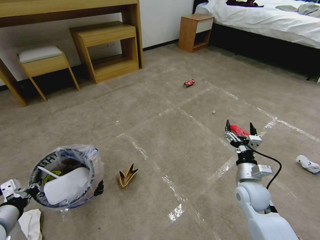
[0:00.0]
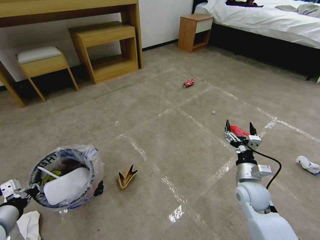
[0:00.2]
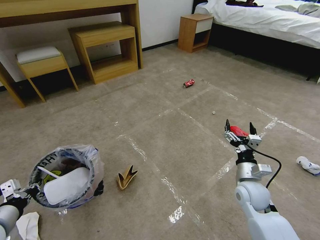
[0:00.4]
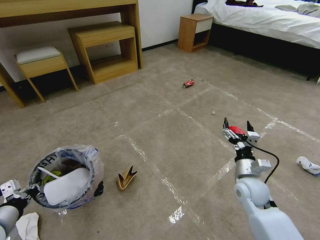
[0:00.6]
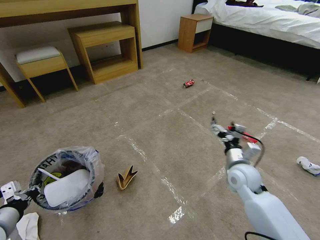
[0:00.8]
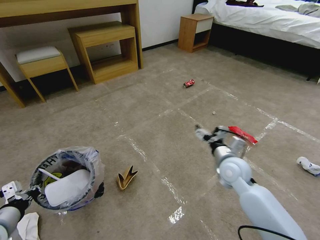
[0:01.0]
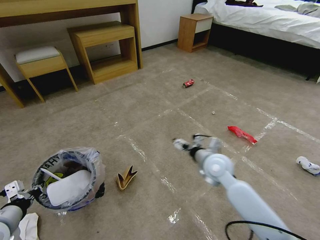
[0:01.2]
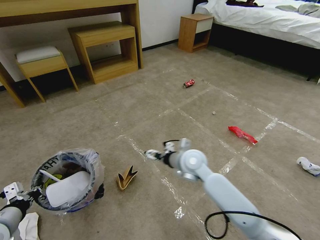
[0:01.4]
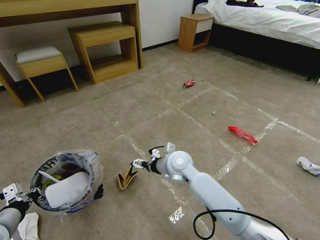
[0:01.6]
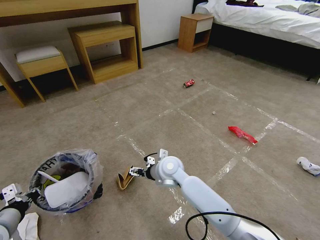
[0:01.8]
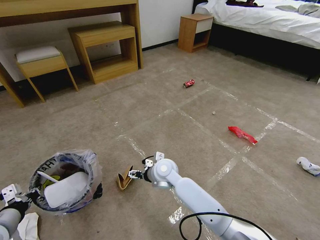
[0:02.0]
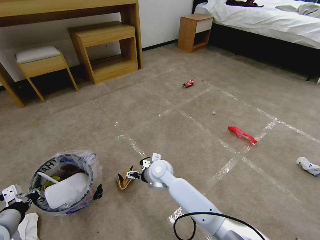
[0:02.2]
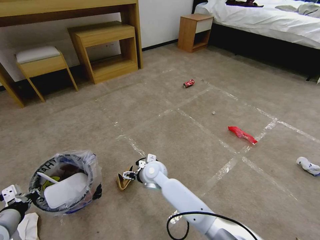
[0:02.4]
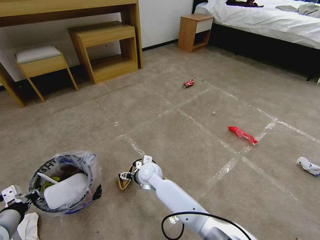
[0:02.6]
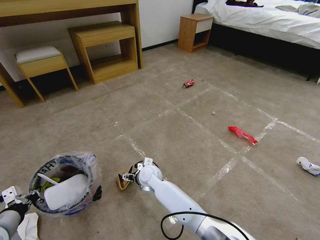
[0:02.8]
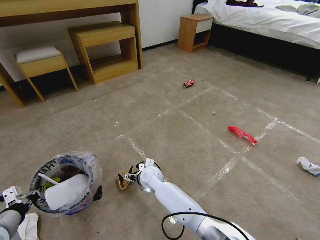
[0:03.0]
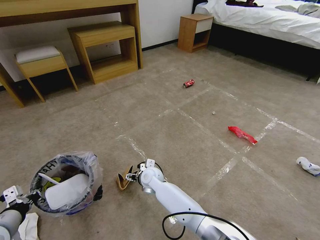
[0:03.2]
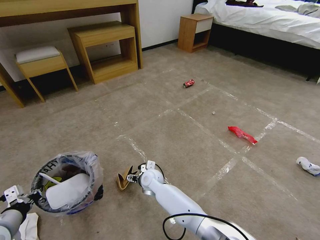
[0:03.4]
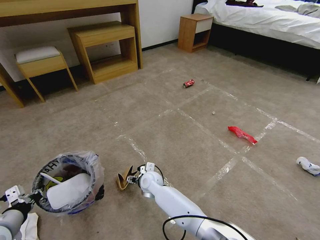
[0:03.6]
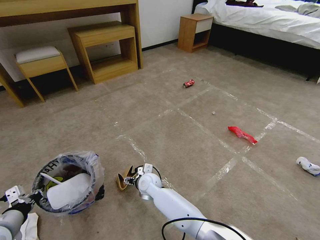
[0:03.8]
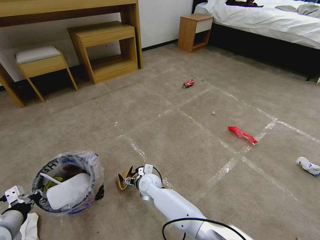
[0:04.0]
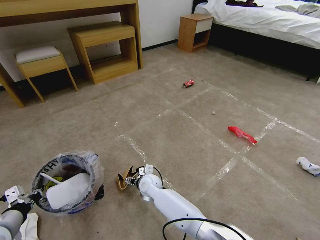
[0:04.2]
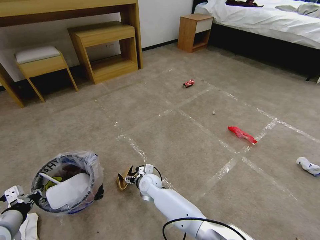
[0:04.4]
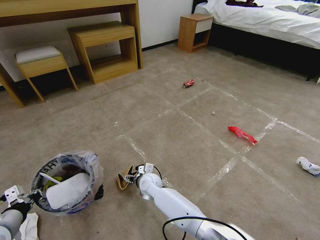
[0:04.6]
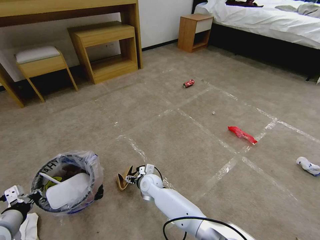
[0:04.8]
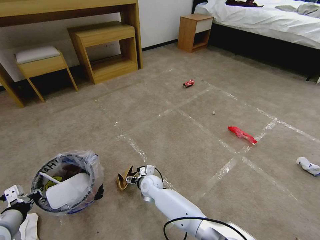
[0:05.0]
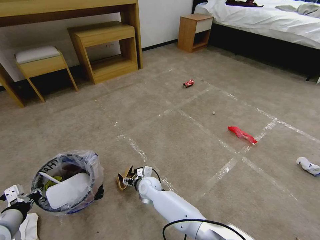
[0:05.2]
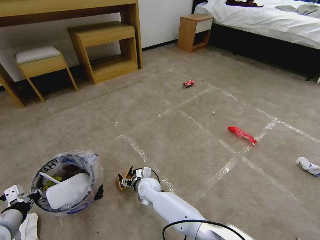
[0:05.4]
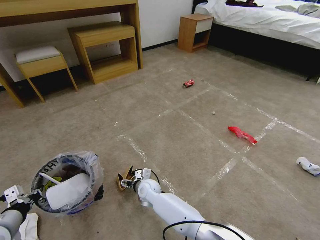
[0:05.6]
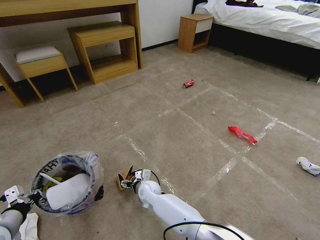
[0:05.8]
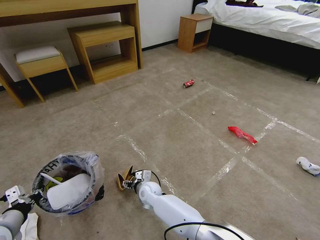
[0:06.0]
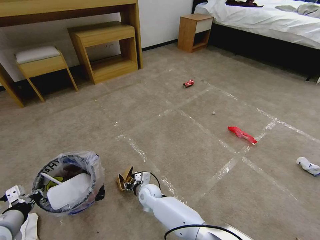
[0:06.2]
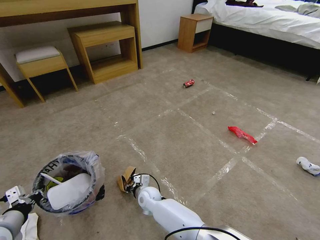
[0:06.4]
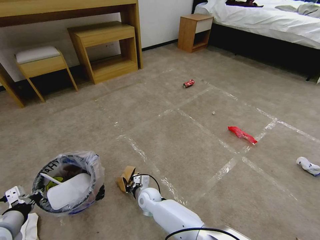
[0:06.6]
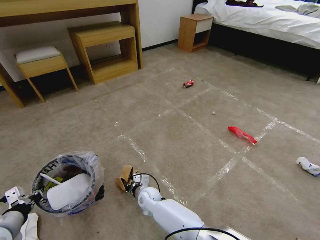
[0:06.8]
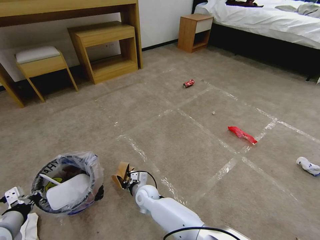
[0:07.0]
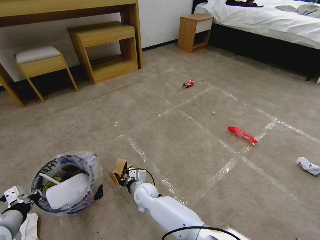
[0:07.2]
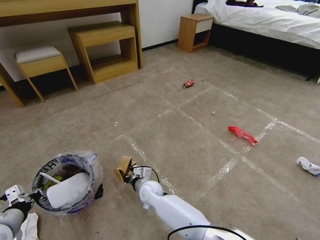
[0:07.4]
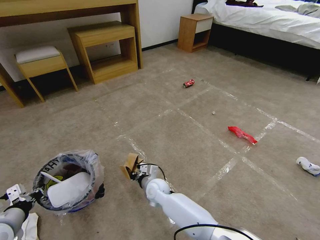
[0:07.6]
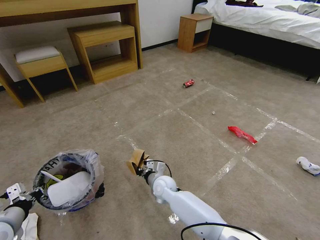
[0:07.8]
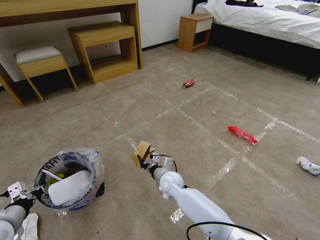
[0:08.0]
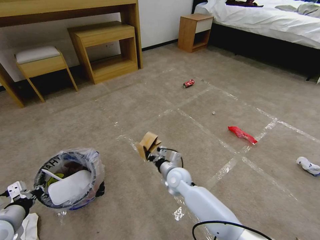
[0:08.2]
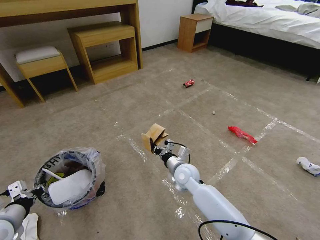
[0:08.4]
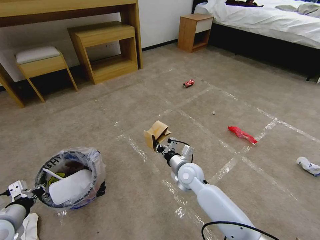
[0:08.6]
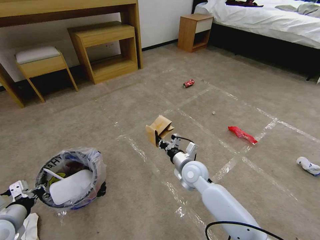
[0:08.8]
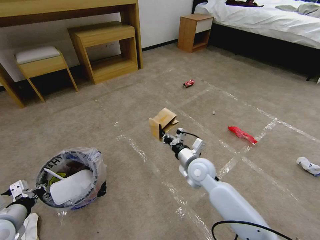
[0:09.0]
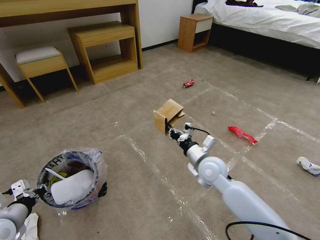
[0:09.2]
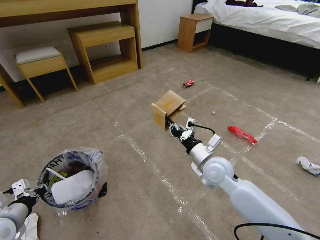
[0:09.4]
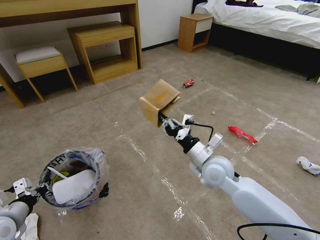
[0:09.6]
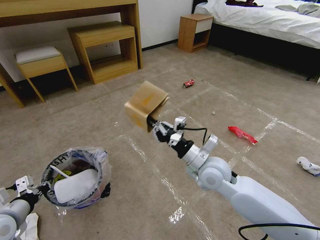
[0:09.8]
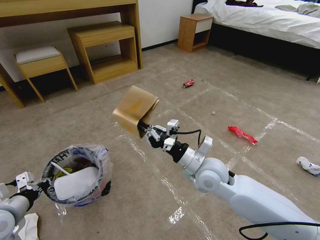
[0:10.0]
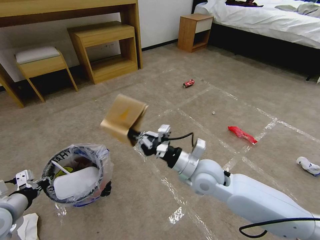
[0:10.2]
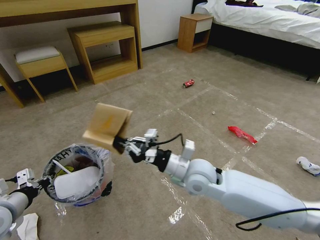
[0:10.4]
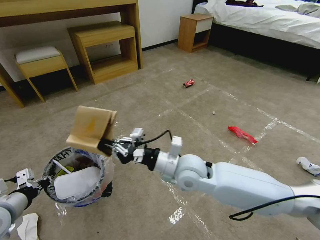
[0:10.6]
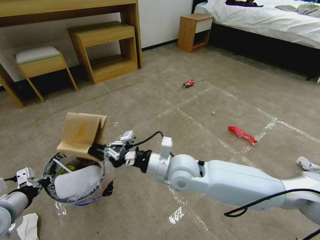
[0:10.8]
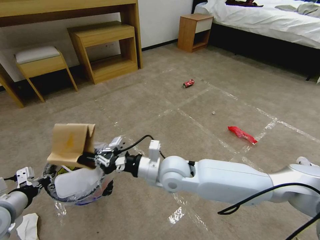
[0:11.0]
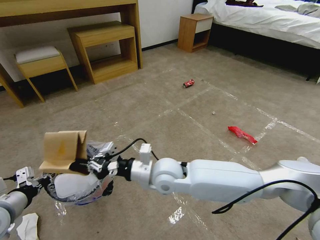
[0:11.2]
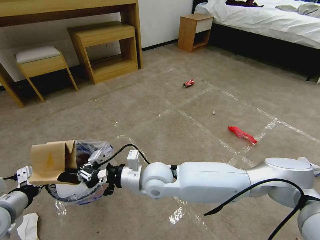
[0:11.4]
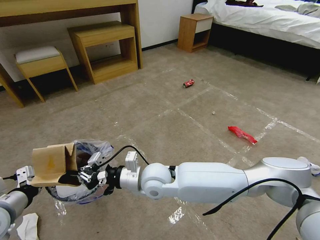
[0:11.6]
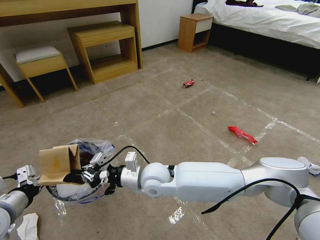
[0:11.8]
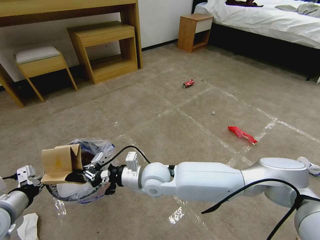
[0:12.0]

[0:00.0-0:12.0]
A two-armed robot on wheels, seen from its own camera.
Task of the whole recording: Pick up the trash bin and place the garbage on the floor into it.
0:00.0 to 0:01.6: The right gripper is displaced to the left by some 25 cm.
0:01.6 to 0:03.0: The right gripper heads downward and to the left, covering about 15 cm.
0:03.0 to 0:04.4: The grippers make only small movements.
0:04.4 to 0:06.0: There are only small adjustments of the grippers.
0:06.0 to 0:07.6: The right gripper closes up.
0:07.6 to 0:09.0: The right gripper shifts some 20 cm to the right and upward.
0:09.0 to 0:10.4: The right gripper shifts about 10 cm upward and backward.
0:10.4 to 0:12.0: The right gripper goes roughly 15 cm to the left.

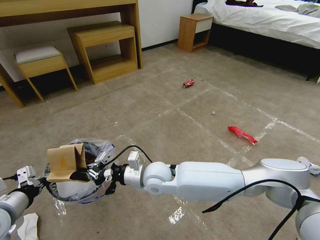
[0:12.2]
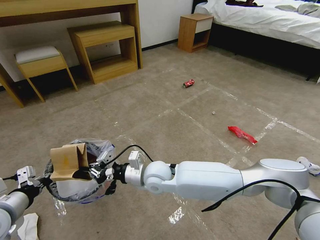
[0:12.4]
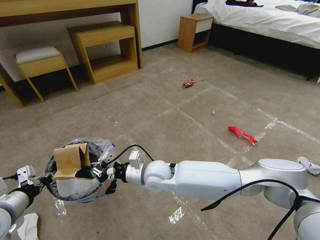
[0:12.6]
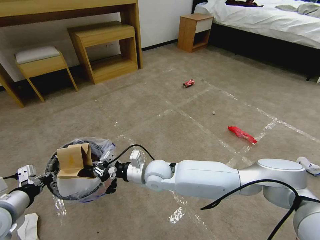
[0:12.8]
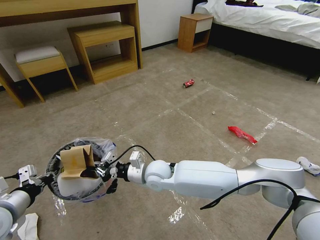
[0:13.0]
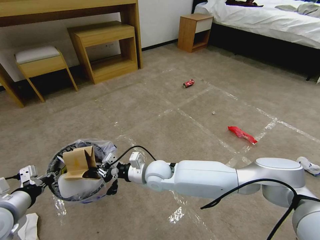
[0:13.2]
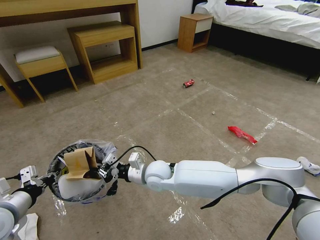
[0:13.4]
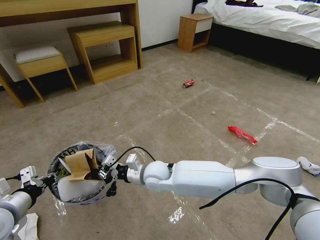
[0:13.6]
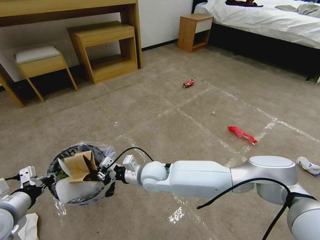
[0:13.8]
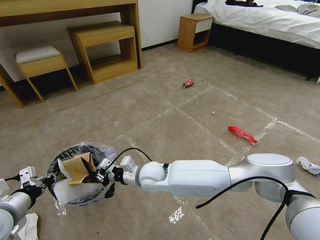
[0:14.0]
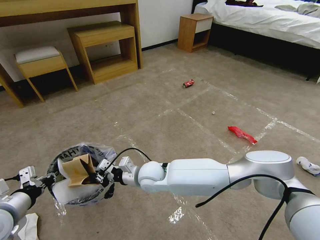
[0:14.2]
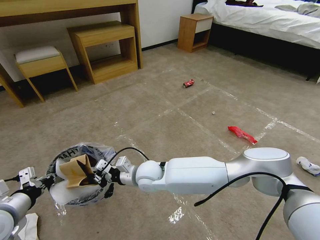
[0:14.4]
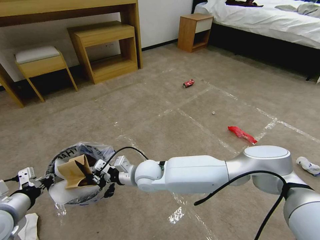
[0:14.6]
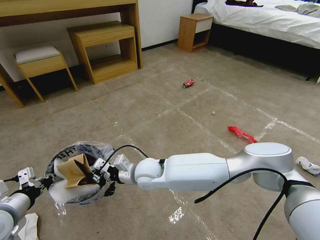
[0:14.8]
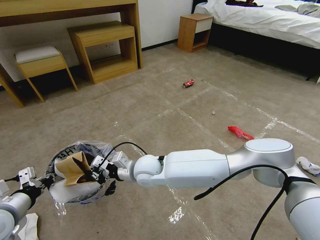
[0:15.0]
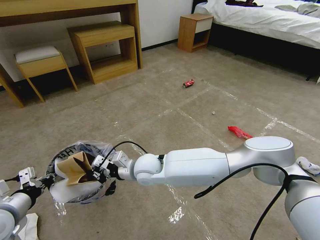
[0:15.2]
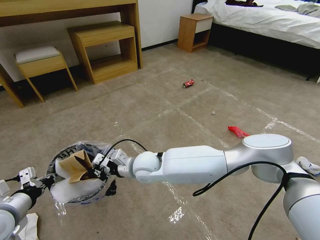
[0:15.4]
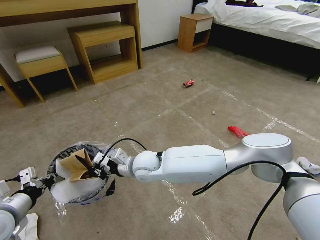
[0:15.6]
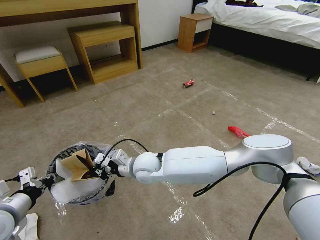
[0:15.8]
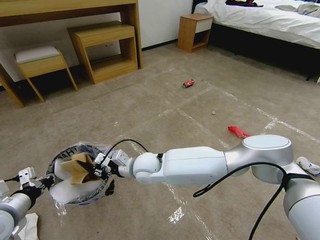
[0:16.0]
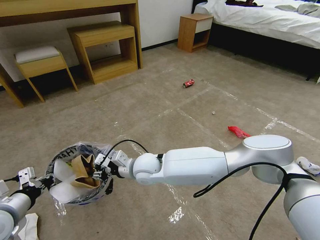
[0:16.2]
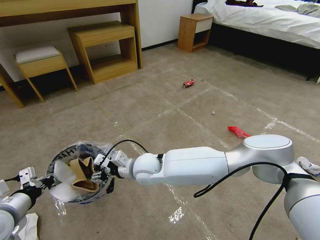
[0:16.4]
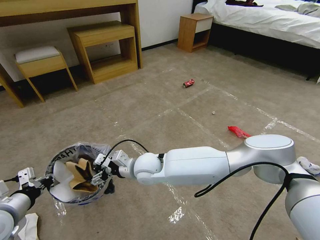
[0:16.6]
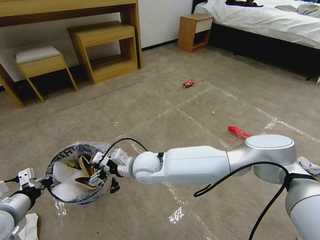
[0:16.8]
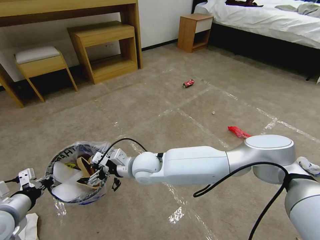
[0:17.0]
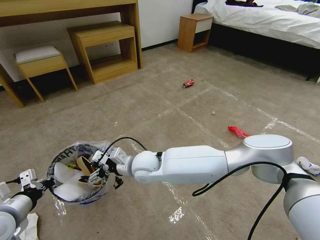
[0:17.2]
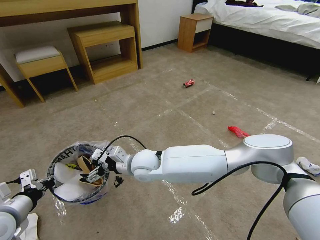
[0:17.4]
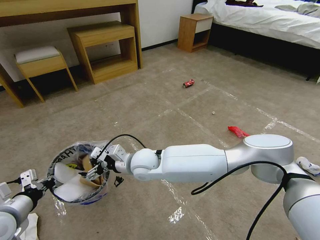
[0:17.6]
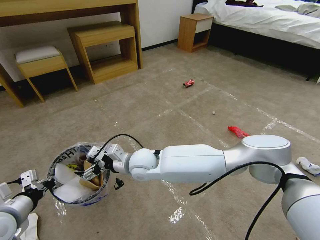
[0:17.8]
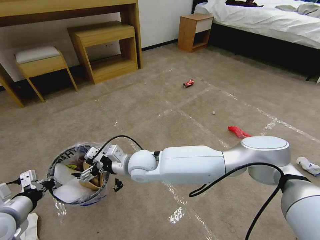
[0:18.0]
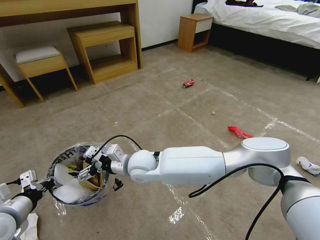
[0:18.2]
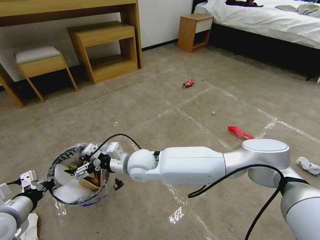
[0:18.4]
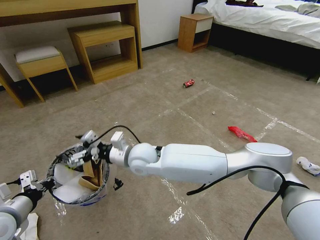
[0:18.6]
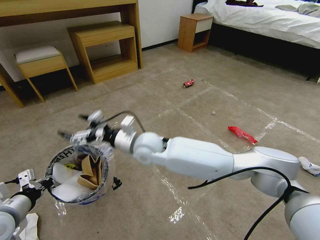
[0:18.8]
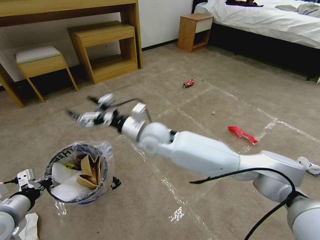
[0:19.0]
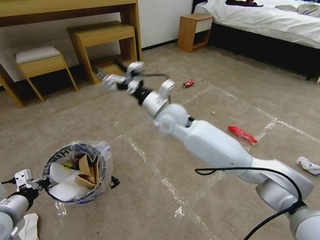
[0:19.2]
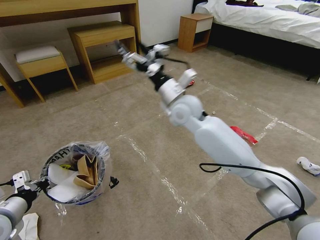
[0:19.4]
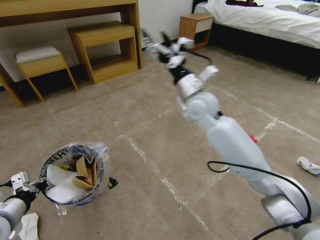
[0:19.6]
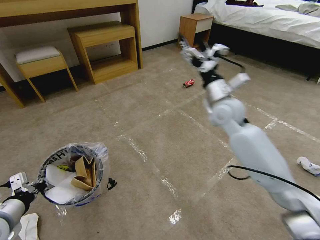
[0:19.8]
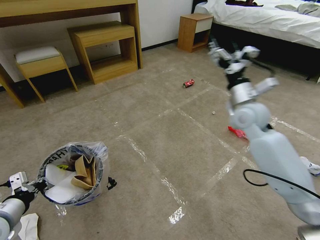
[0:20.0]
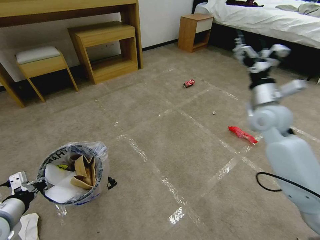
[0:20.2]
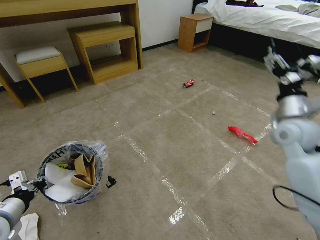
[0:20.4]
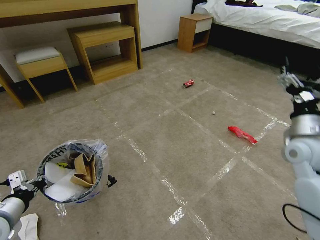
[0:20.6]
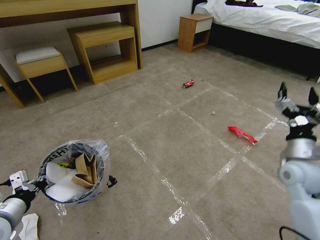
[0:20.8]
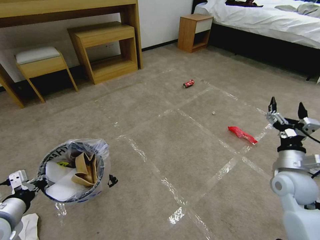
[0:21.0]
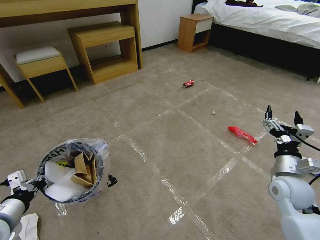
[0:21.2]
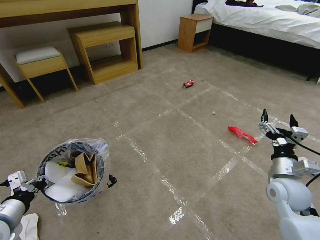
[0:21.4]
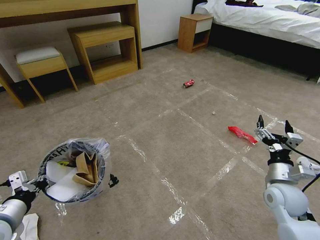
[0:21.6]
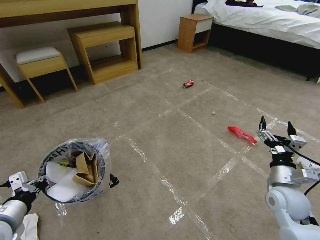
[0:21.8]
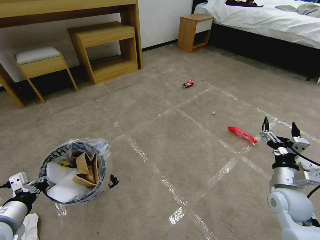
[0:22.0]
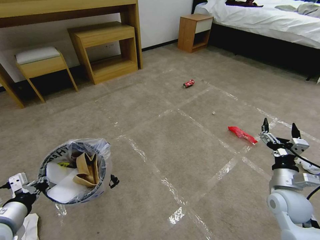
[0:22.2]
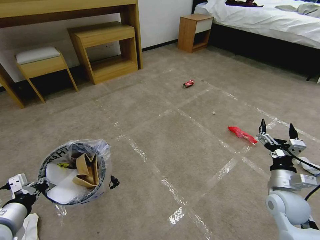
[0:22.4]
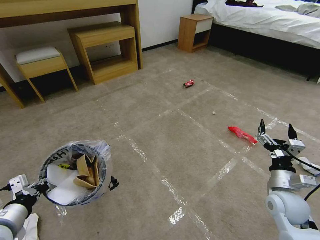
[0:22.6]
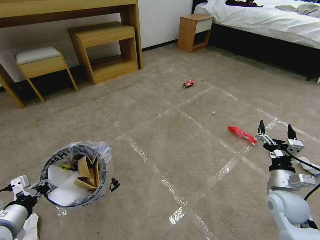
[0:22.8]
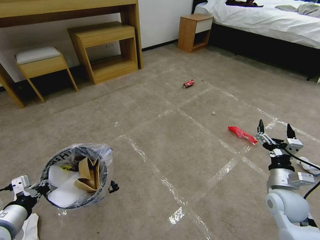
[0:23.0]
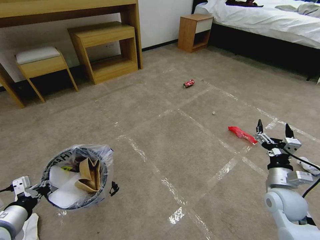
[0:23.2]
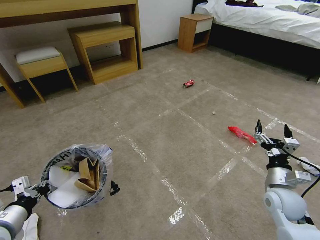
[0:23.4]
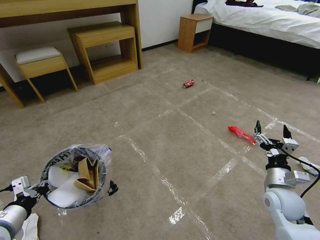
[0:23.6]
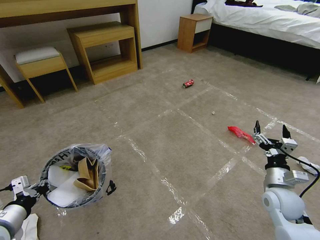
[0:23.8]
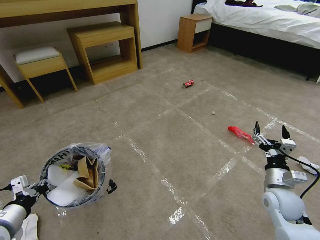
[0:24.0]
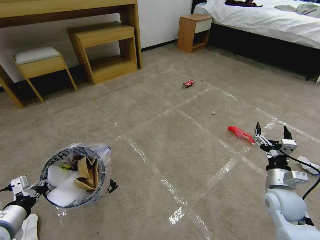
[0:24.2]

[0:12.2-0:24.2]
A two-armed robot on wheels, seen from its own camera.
Task of the whole recording: Pick up the trash bin and place the garbage on the floor into it.
0:12.2 to 0:13.8: The grippers stay close to where they were, moving slightly.
0:13.8 to 0:15.2: The grippers make only small movements.
0:15.2 to 0:16.6: The right gripper opens its fingers.
0:16.6 to 0:18.2: The grippers make only small movements.
0:18.2 to 0:19.8: The right gripper travels to the right, upward and forward by approximately 30 cm.
0:19.8 to 0:21.2: The right gripper is displaced backward, to the right and downward by some 30 cm.
0:21.2 to 0:24.2: The grippers make only small movements.
